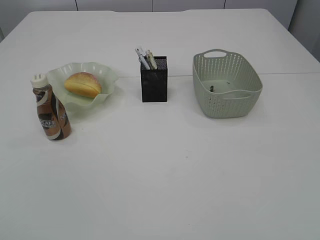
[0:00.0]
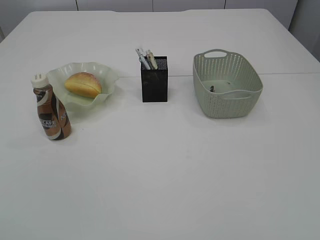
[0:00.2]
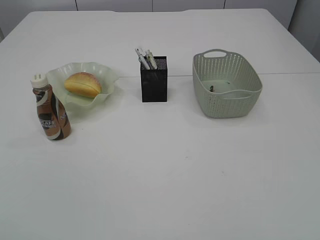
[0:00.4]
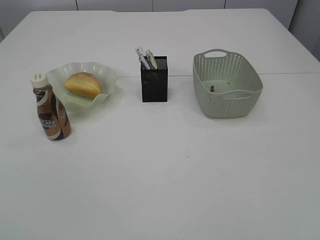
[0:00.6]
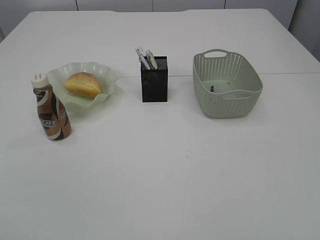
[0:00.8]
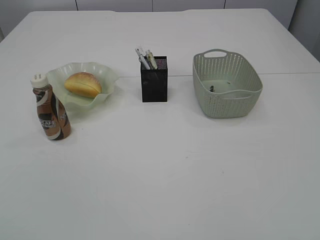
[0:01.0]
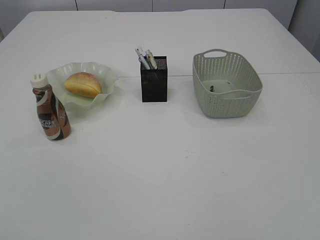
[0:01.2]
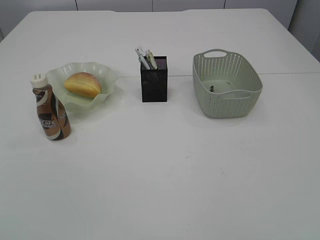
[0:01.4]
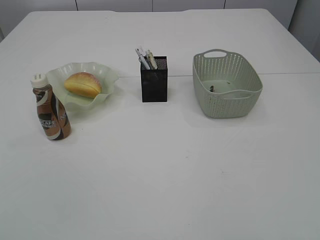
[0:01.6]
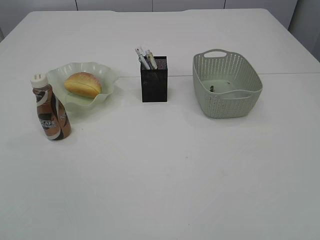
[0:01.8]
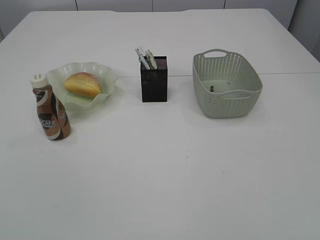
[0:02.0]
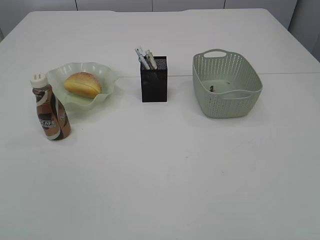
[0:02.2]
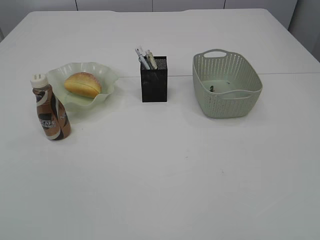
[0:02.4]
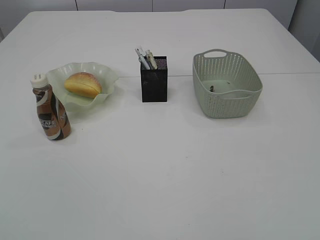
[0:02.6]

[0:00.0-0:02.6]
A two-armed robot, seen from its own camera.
0:00.0 to 0:01.2: Neither gripper changes place.
